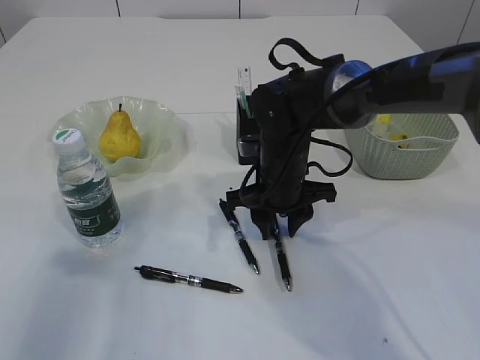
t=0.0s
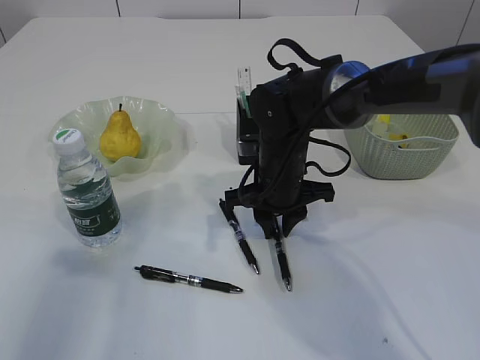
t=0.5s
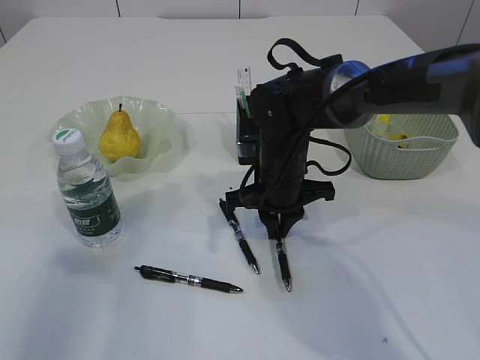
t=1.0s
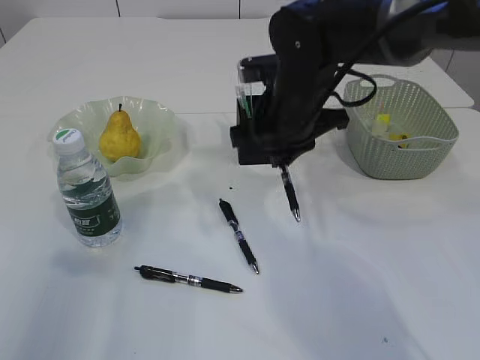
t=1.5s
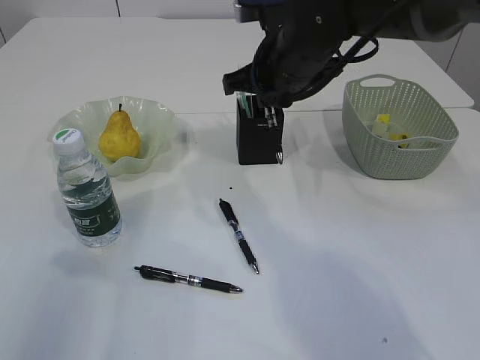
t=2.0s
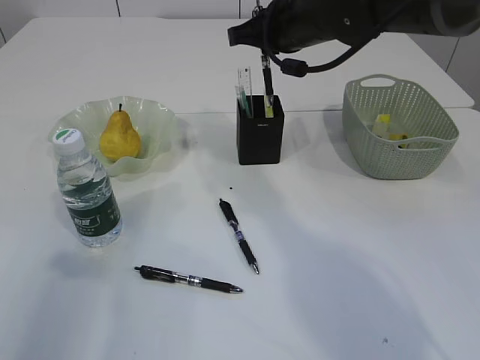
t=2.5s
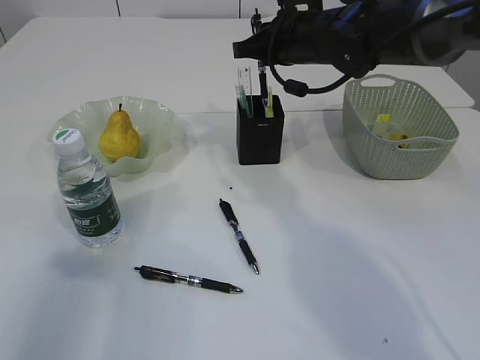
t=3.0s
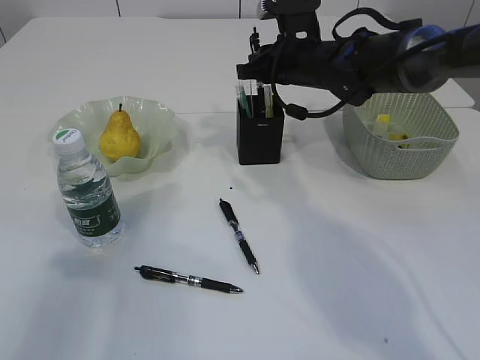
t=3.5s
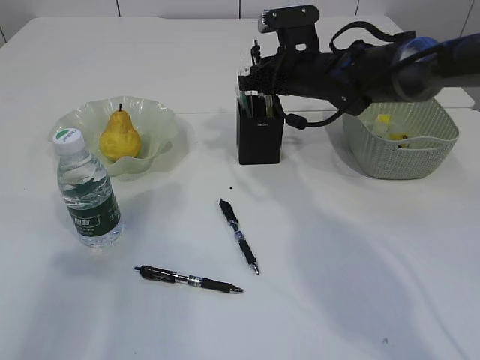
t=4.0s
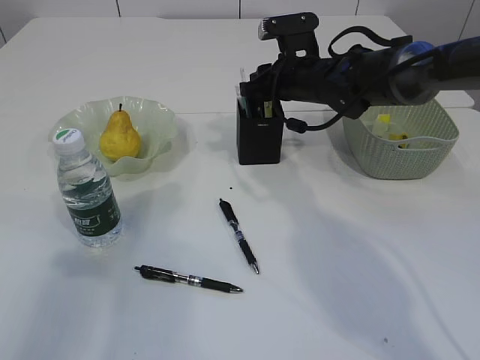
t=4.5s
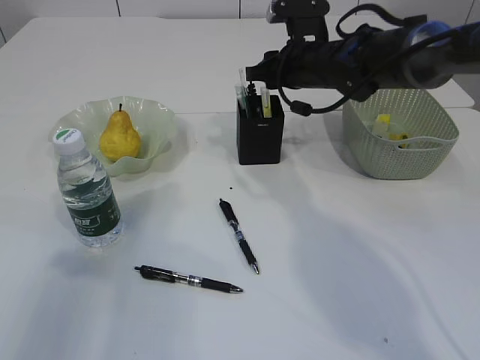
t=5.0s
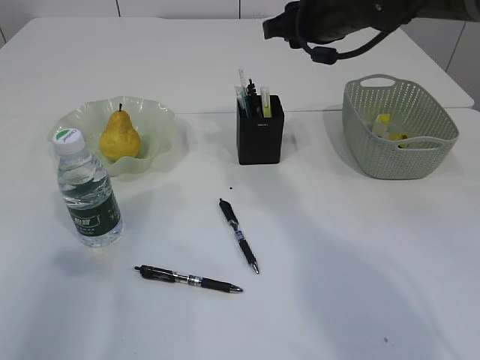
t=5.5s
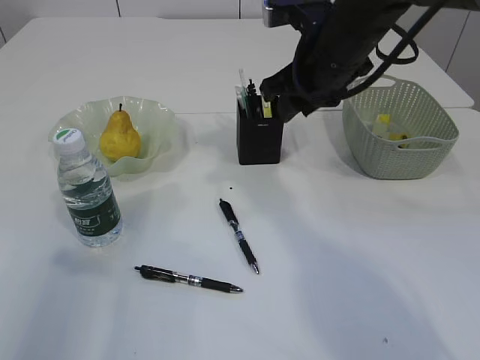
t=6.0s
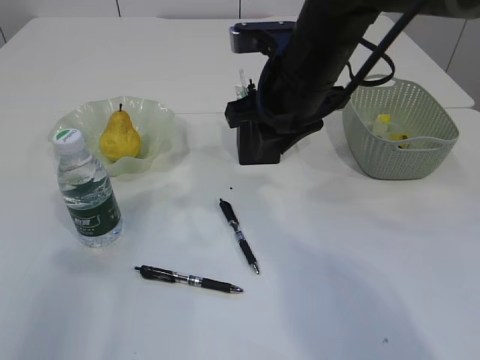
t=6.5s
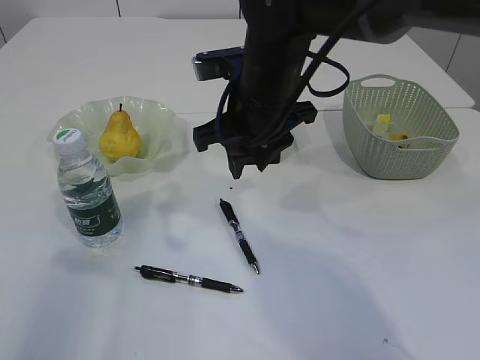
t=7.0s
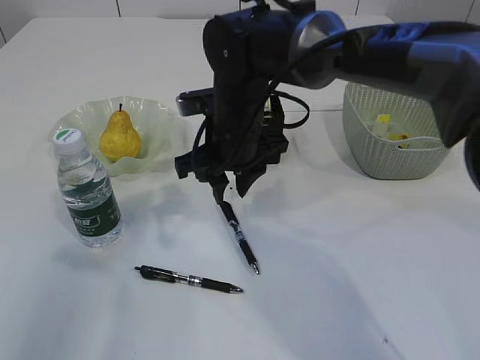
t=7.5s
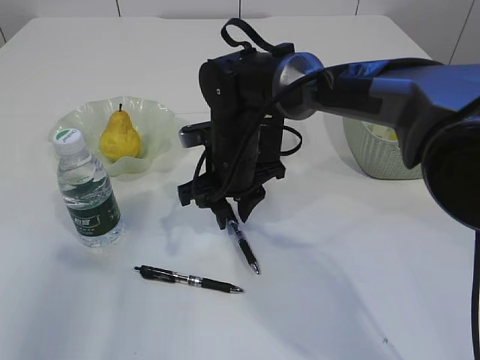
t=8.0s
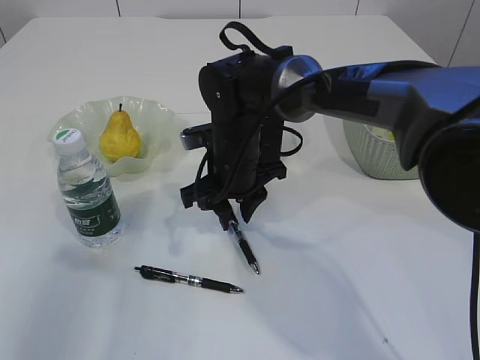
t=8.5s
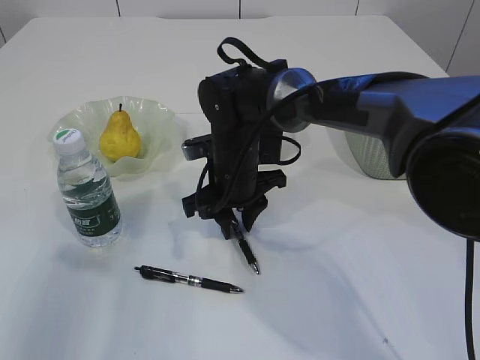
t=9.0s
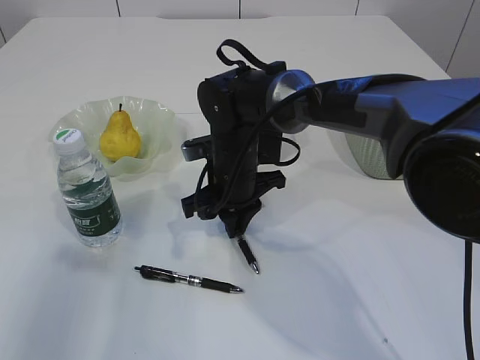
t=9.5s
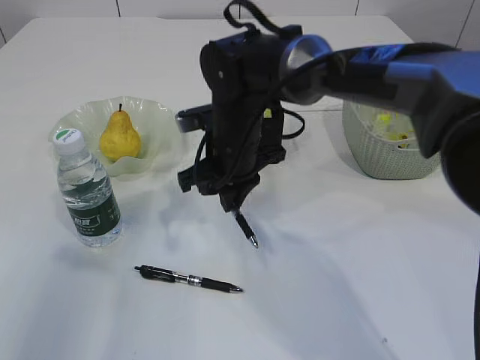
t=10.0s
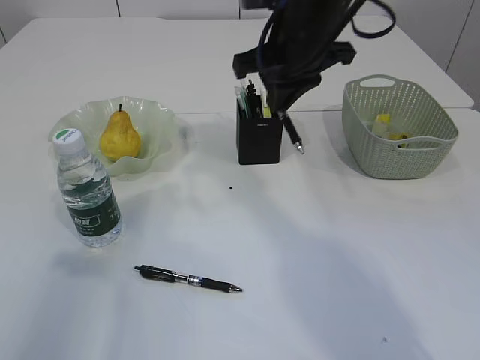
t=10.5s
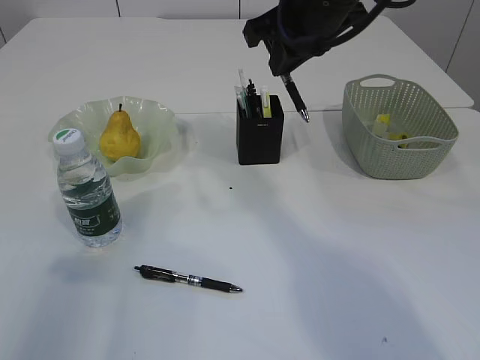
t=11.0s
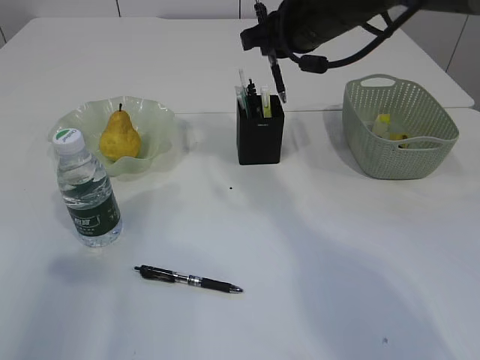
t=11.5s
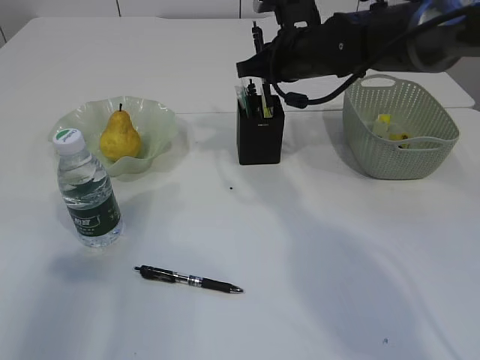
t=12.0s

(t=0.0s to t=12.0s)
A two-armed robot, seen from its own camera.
Step, t=1.5s - t=5.0s: Place the pen into the pen holder.
Step, t=5.5s - t=10.0s: Pick up the pen with right arm.
t=0.0s - t=2.0s: The right gripper heads upward, covering approximately 15 cm, and closes.
t=2.0s - t=4.0s: The right gripper goes about 10 cm forward and downward.
t=4.0s - t=6.0s: The right gripper is displaced backward and upward by some 10 cm.
t=6.0s - t=8.0s: The right gripper goes some 15 cm downward and to the left.
t=8.0s - t=10.0s: The right gripper closes up.
t=10.0s - t=12.0s: The right gripper heads to the right, forward and upward, covering about 15 cm.

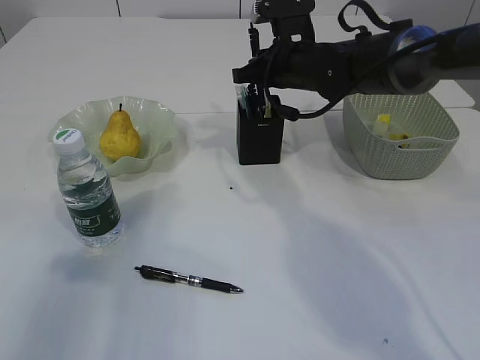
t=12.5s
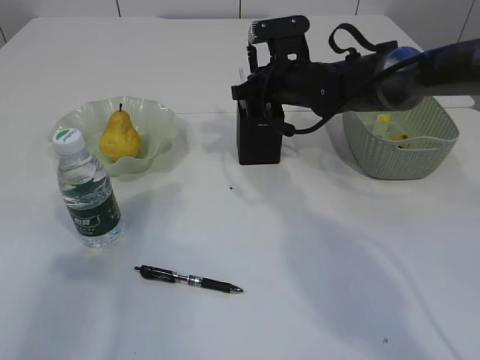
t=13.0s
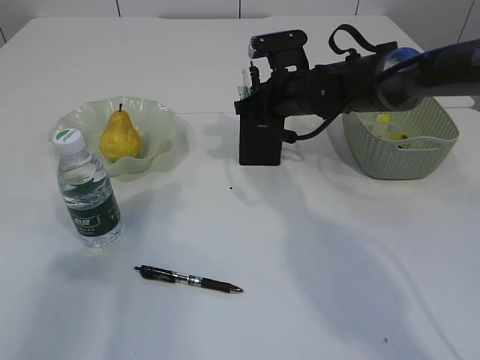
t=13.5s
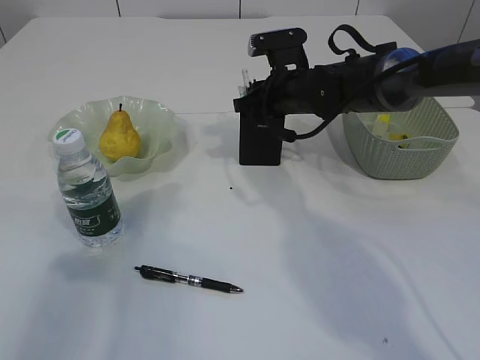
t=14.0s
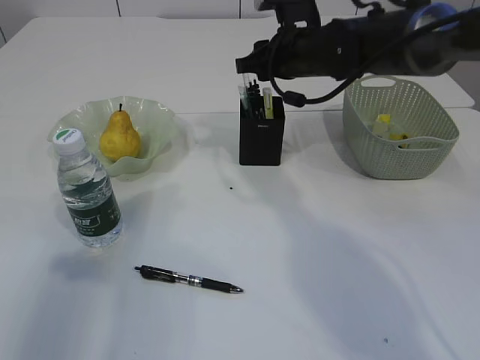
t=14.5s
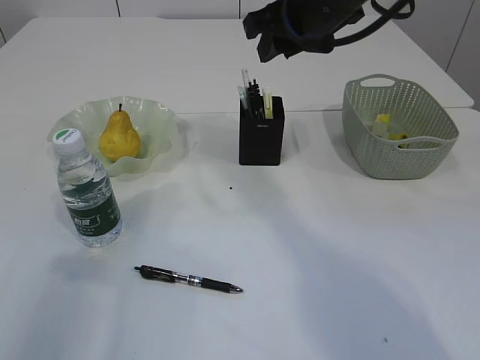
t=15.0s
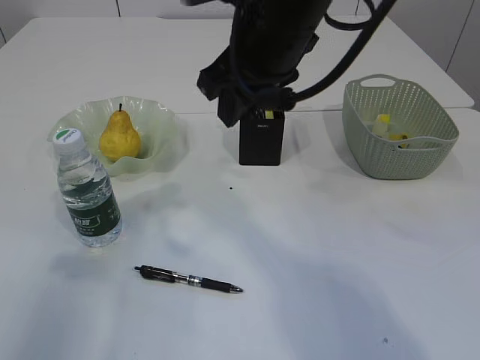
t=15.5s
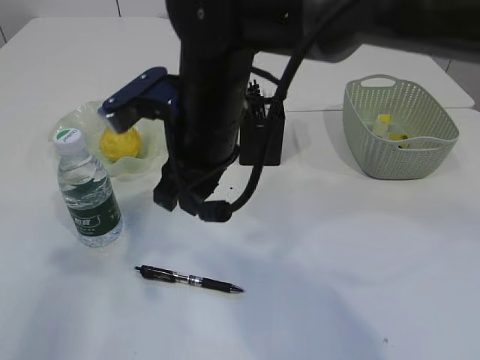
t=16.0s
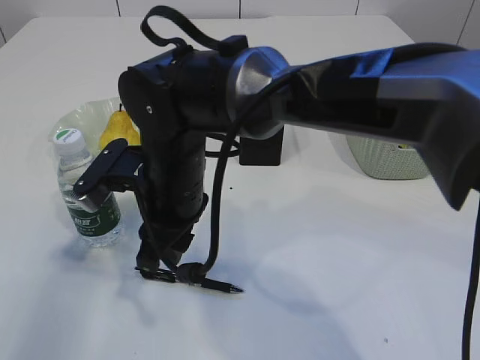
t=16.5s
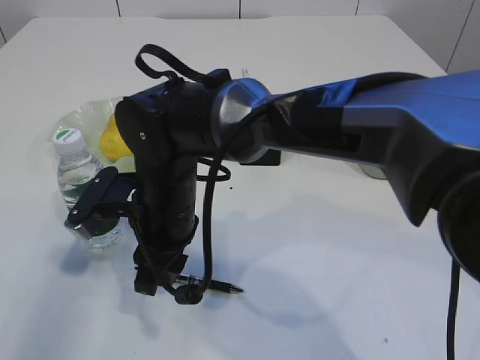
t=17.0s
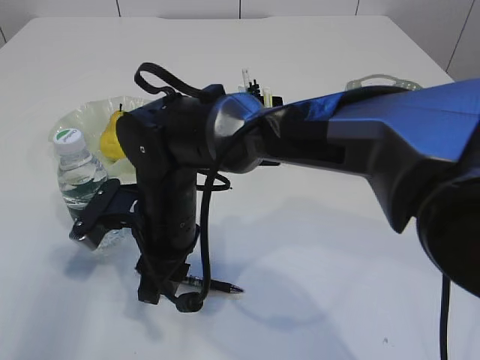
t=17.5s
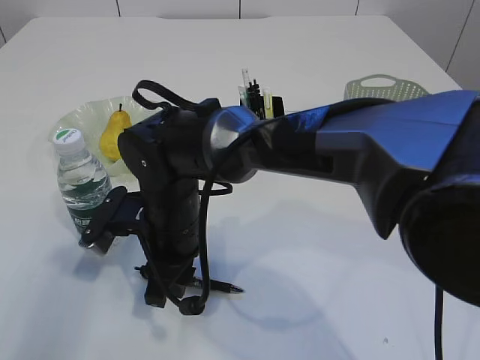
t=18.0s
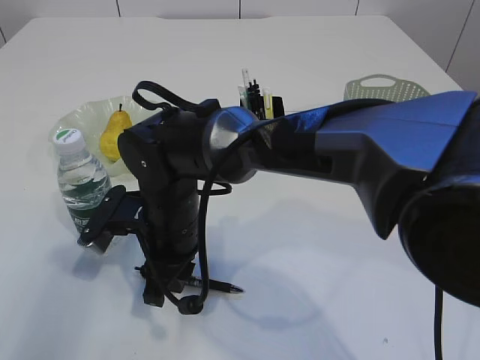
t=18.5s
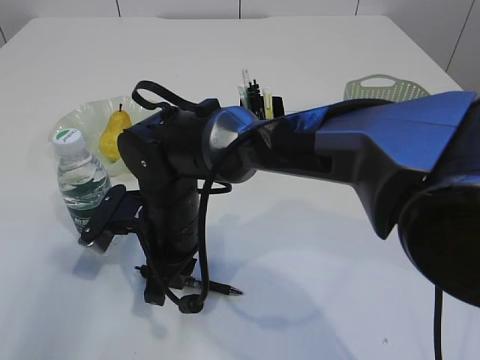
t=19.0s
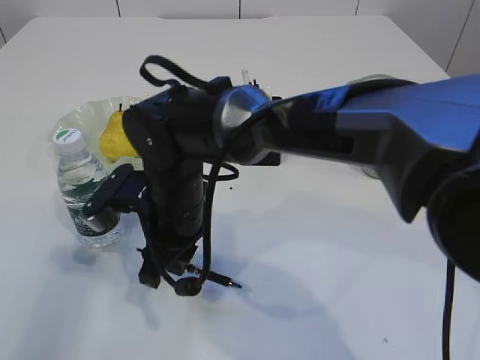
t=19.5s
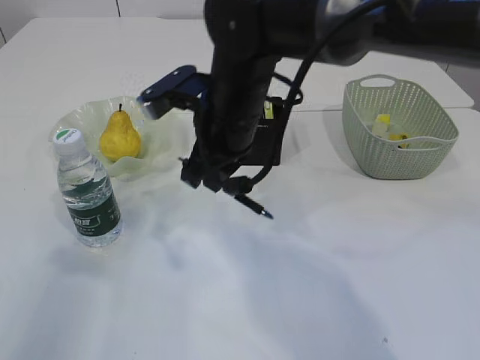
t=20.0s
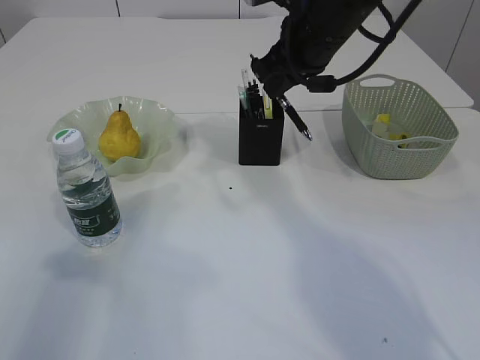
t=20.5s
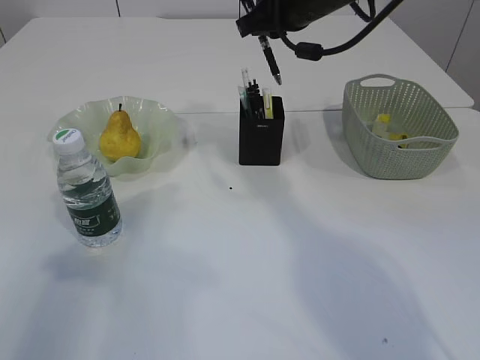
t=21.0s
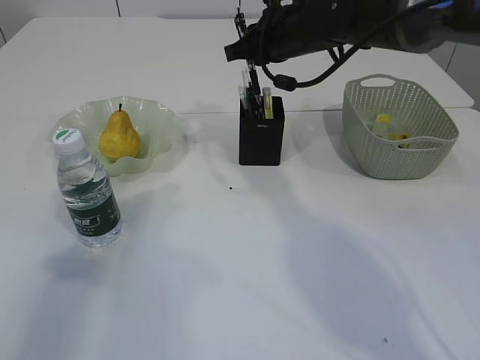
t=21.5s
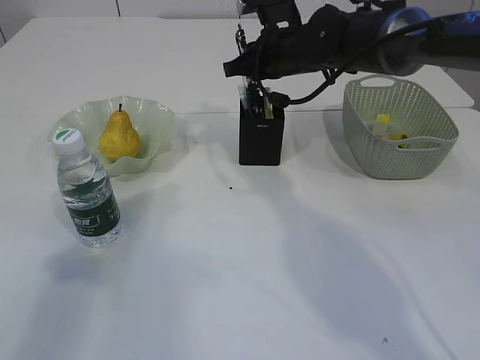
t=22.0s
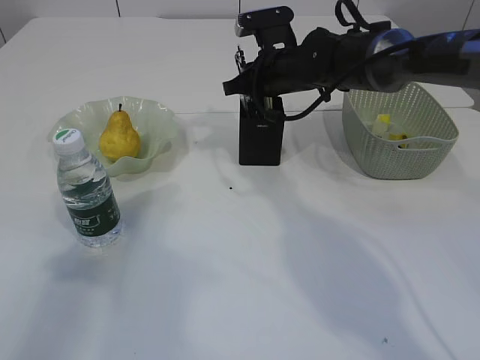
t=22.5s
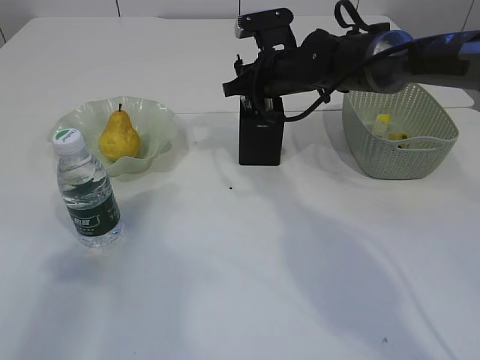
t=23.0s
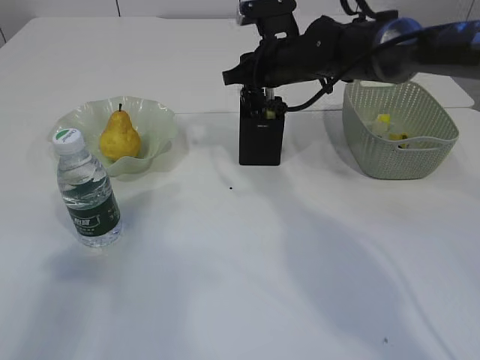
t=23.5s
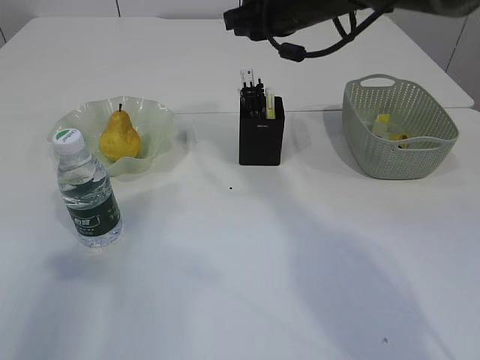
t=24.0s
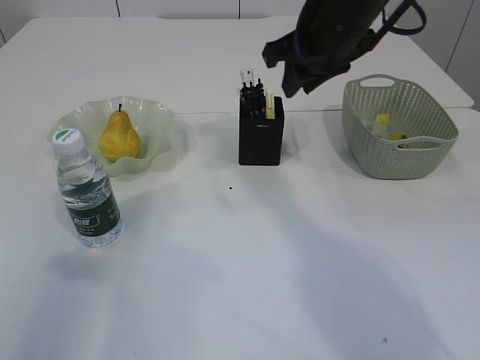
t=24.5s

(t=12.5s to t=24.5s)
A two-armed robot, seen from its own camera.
Step, t=14.5s - t=19.5s: Pick up the pen with right arm.
Step, t=20.0s - t=23.5s: Place the pen into the pen holder.
t=12.5s - t=14.5s: The right gripper opens up.
t=14.5s - t=16.5s: The right gripper moves to the left and backward, some 25 cm.
t=16.5s - t=18.5s: The right gripper moves downward, approximately 5 cm.
t=18.5s - t=20.5s: The right gripper heads to the right, upward and forward, covering roughly 25 cm.
t=20.5s - t=22.5s: The right gripper heads downward and forward, covering roughly 15 cm.
t=22.5s - t=24.5s: The right gripper moves upward and backward, about 15 cm.

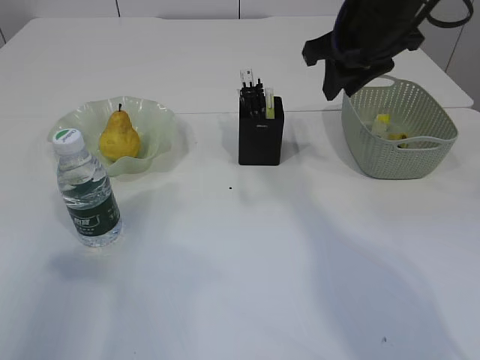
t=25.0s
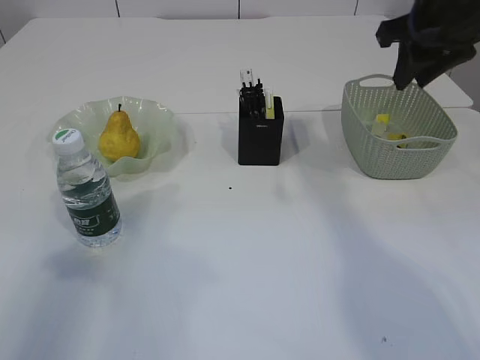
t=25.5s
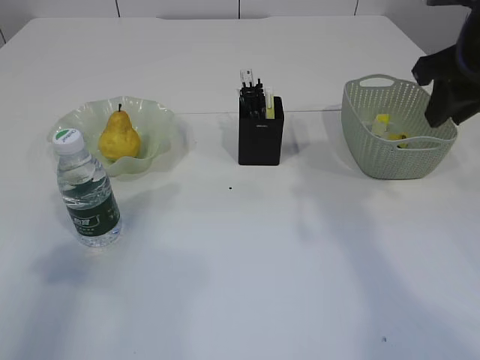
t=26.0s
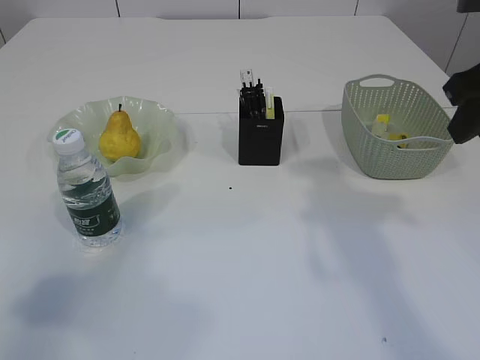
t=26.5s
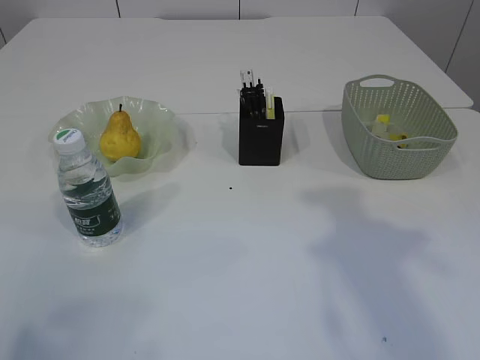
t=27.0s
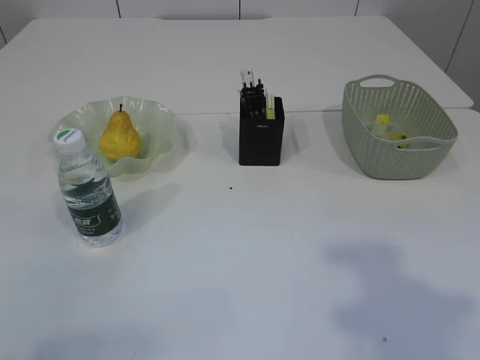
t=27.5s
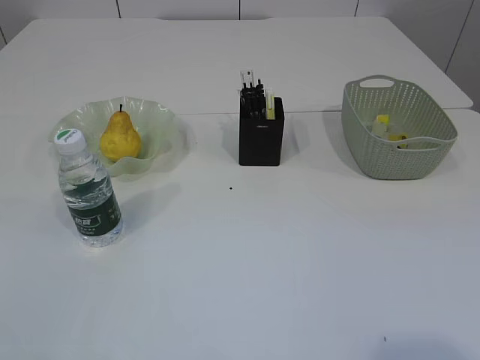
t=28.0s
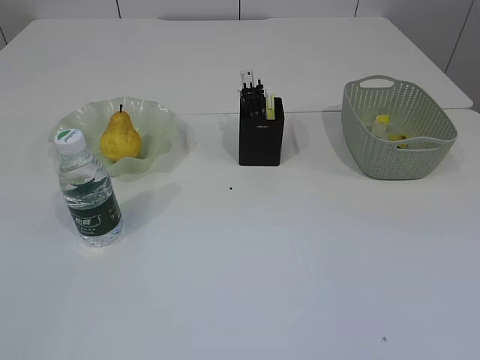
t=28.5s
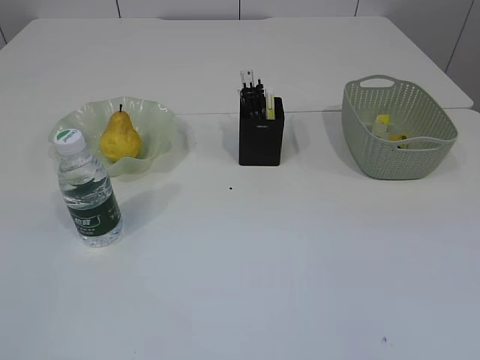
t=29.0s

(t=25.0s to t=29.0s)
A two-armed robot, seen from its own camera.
t=25.0s - t=27.0s: The right gripper heads backward and to the right, covering approximately 20 cm.
t=27.0s - t=29.0s: The left gripper travels downward by approximately 5 cm, while the right gripper heads backward, covering about 25 cm.
